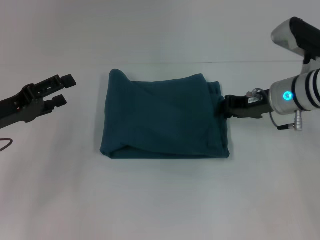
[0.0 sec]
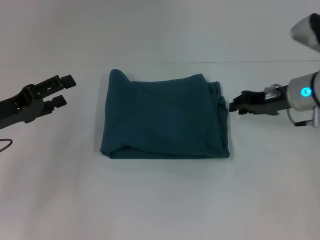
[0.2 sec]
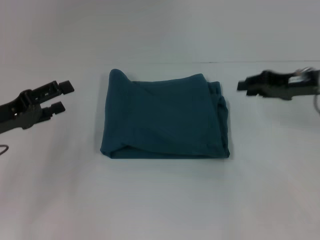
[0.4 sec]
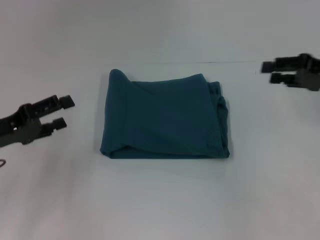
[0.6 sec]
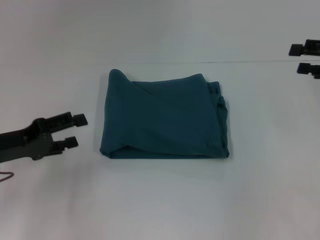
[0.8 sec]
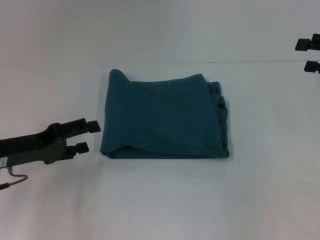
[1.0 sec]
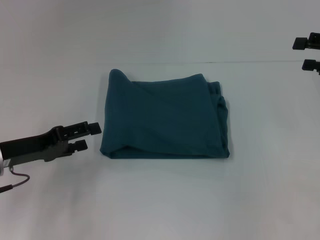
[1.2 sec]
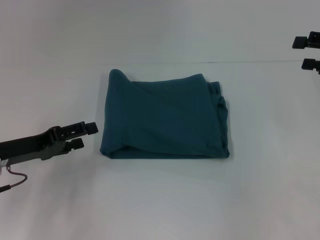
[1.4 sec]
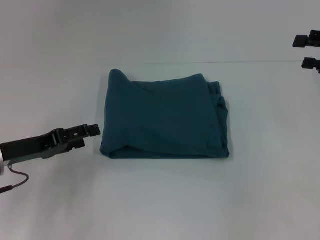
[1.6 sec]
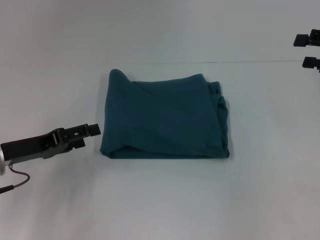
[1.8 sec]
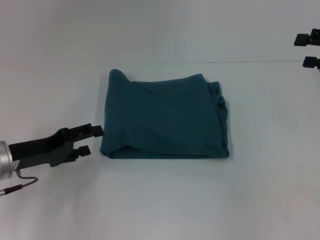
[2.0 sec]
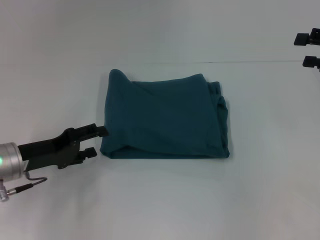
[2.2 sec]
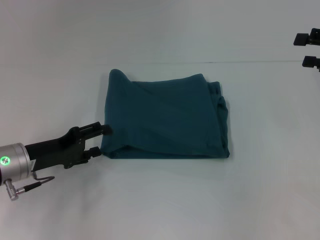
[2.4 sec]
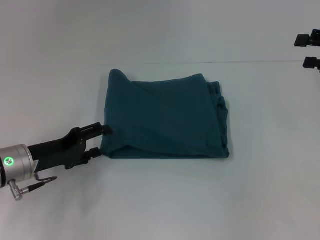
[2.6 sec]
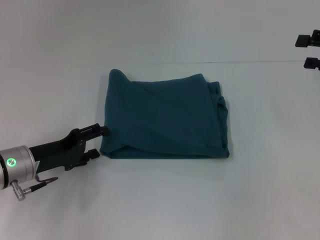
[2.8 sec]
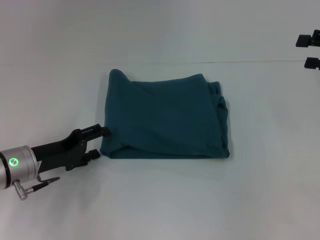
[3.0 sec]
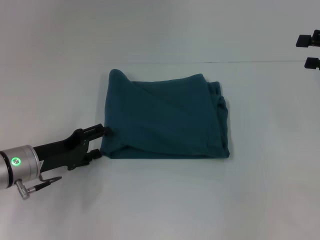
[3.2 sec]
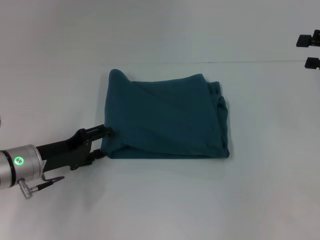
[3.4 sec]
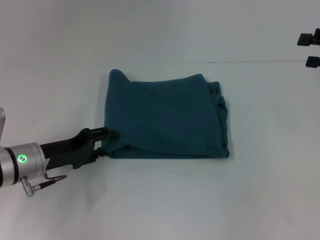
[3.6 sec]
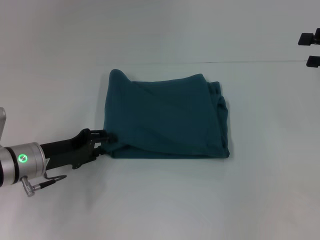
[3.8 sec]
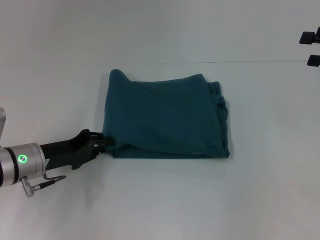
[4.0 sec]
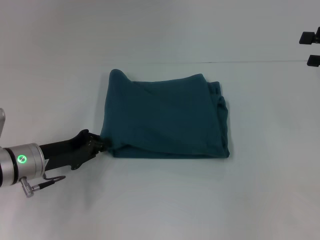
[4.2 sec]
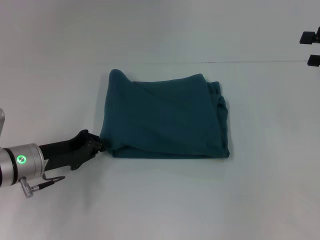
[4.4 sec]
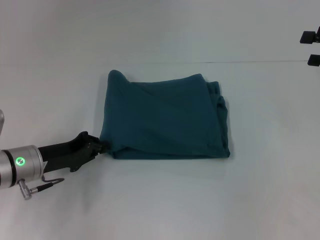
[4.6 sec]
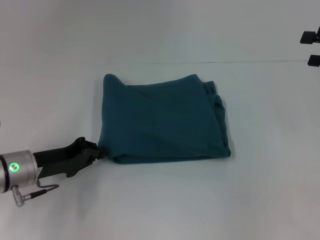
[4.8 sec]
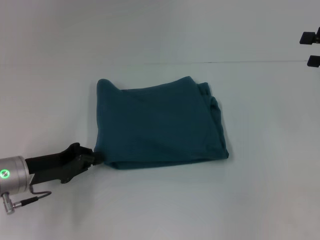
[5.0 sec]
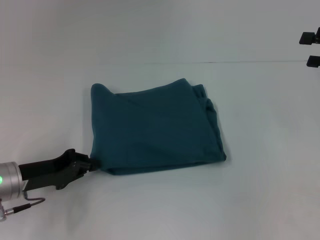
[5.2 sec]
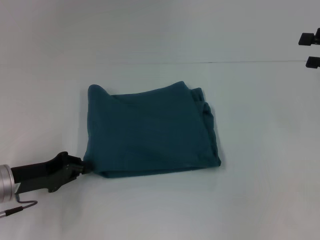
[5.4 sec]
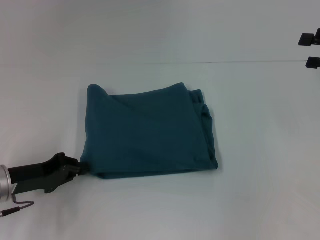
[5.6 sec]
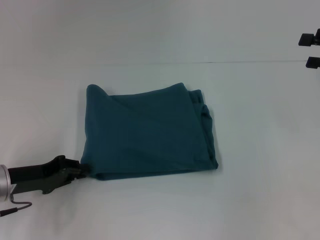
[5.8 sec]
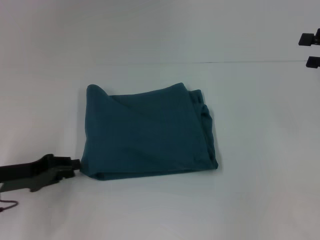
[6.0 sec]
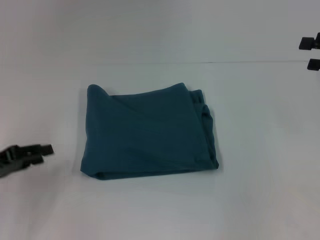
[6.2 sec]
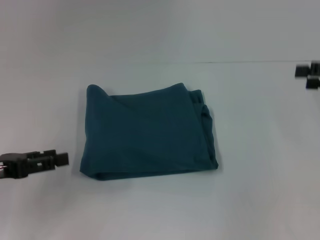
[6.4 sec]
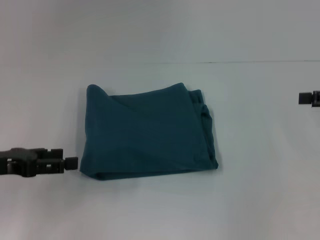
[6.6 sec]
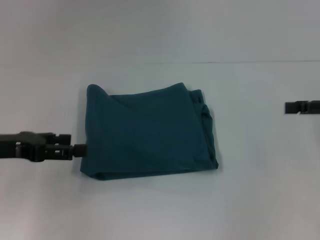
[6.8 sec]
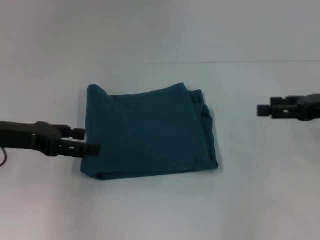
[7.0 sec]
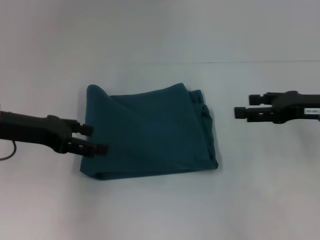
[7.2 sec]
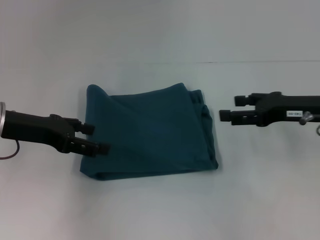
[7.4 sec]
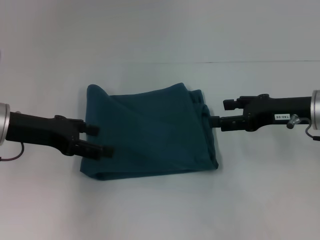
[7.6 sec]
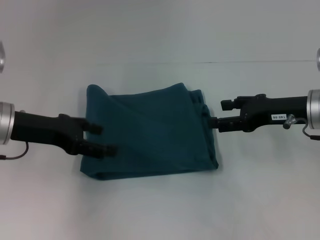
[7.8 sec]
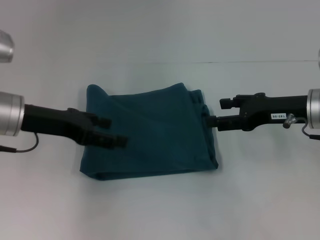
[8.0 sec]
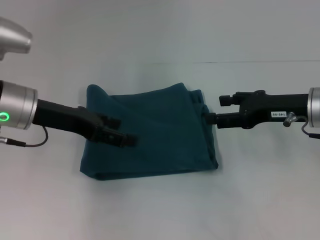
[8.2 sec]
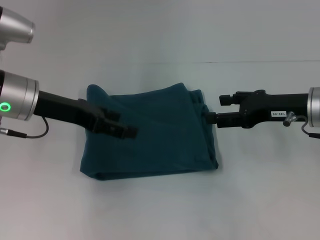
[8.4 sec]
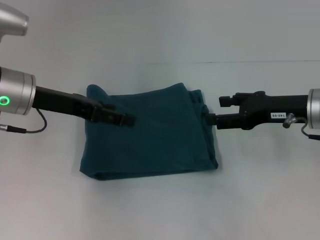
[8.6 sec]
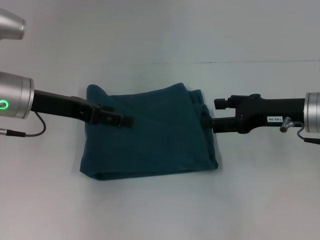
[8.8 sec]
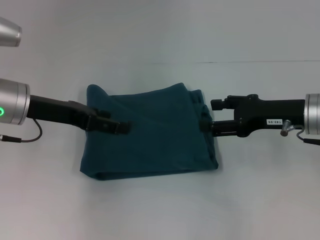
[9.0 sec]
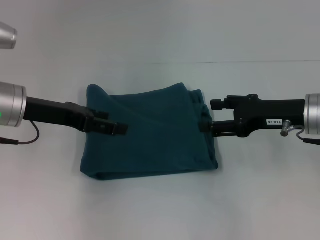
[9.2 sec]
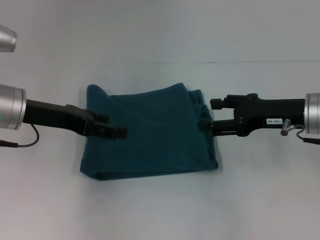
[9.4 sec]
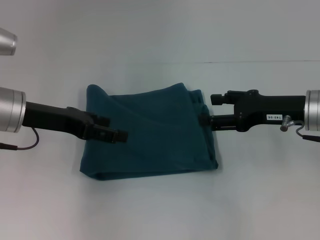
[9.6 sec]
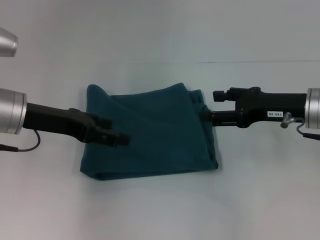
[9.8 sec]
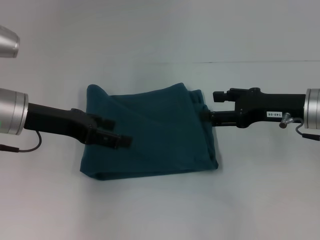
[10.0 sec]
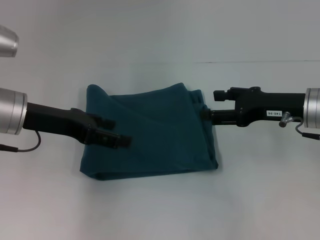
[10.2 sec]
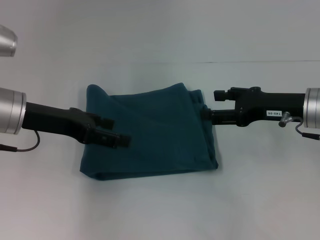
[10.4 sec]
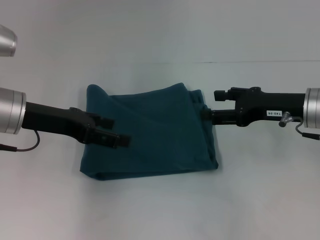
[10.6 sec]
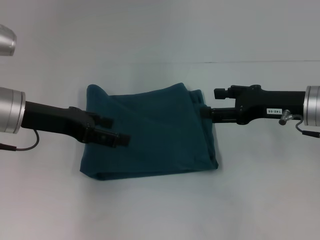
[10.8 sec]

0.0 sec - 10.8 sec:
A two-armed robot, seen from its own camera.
0.0 sec - 1.6 sec: The right gripper heads to the right and upward, covering approximately 20 cm, and opens its fingers.
1.6 sec - 3.0 sec: The left gripper ends up about 5 cm from where it was.
3.0 sec - 4.6 sec: The left gripper closes.
4.6 sec - 6.2 sec: The left gripper shifts roughly 10 cm to the left.
6.2 sec - 7.8 sec: The right gripper moves to the left and downward, approximately 15 cm. Meanwhile the left gripper heads to the right, forward and upward, covering some 10 cm, and opens up.
7.8 sec - 10.8 sec: The grippers make only small movements.

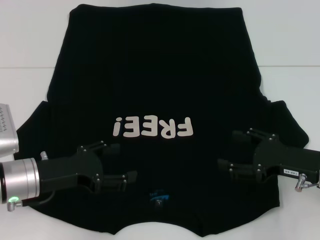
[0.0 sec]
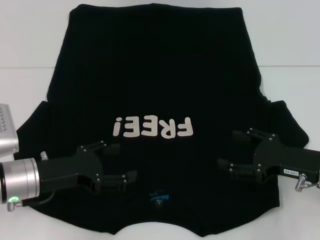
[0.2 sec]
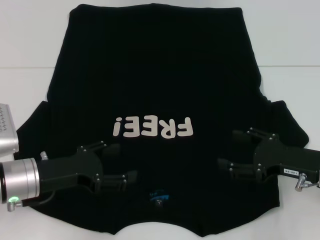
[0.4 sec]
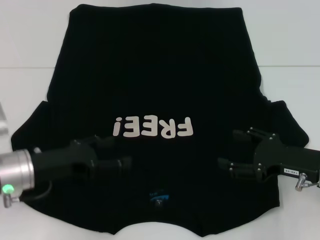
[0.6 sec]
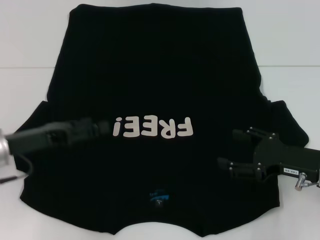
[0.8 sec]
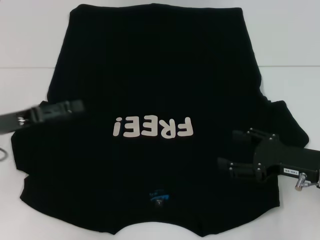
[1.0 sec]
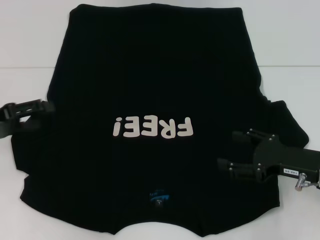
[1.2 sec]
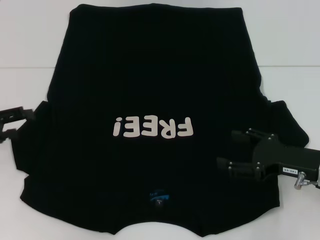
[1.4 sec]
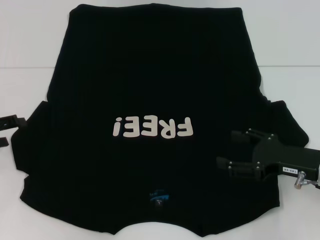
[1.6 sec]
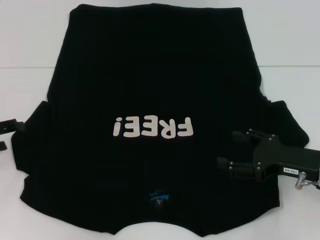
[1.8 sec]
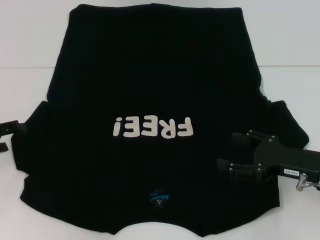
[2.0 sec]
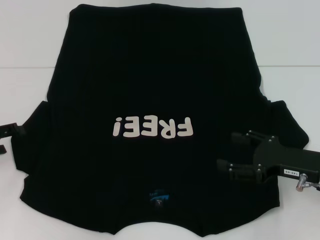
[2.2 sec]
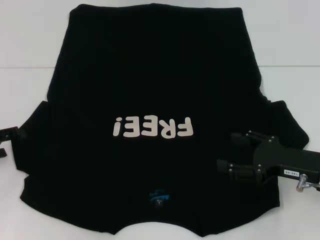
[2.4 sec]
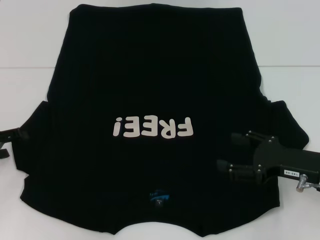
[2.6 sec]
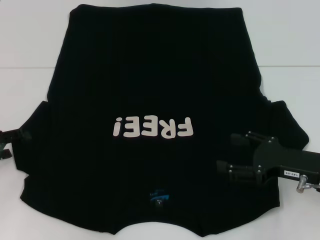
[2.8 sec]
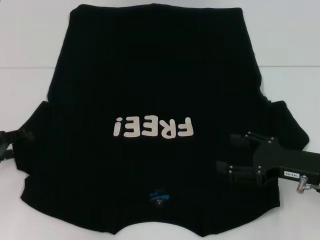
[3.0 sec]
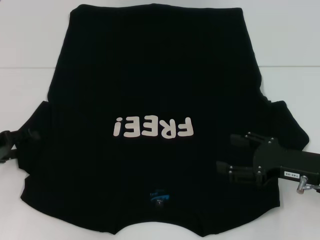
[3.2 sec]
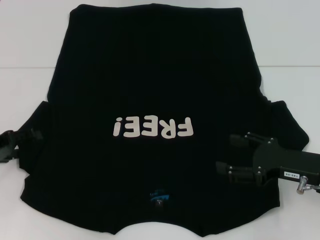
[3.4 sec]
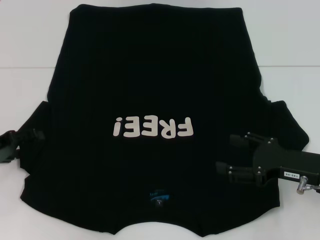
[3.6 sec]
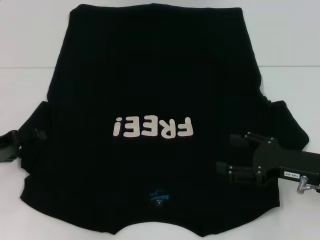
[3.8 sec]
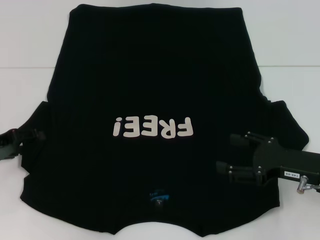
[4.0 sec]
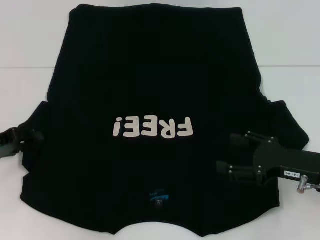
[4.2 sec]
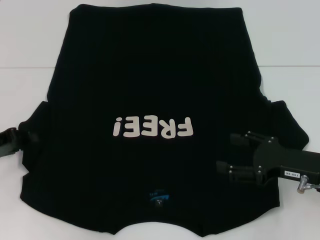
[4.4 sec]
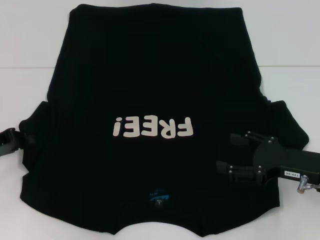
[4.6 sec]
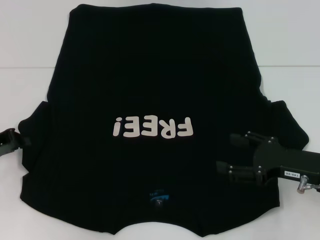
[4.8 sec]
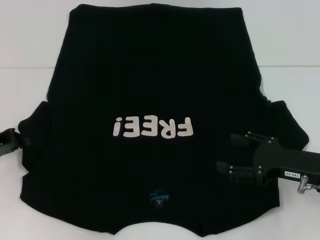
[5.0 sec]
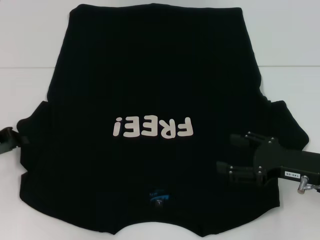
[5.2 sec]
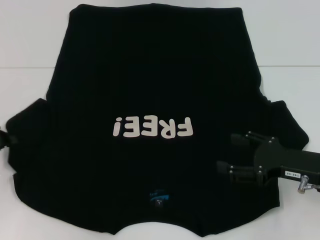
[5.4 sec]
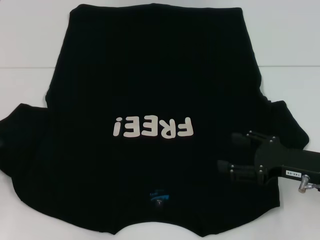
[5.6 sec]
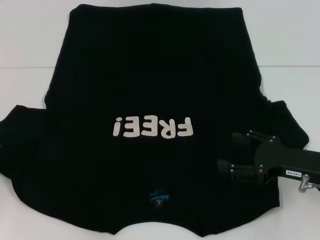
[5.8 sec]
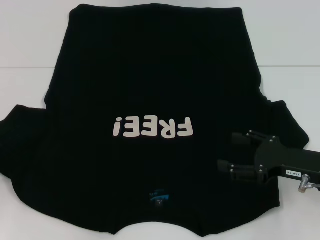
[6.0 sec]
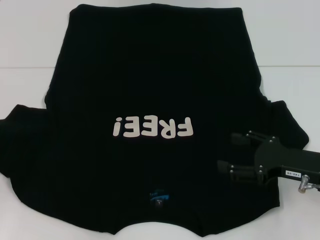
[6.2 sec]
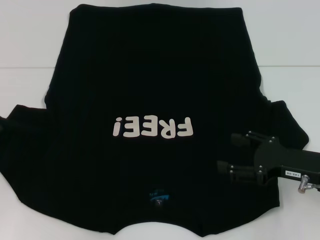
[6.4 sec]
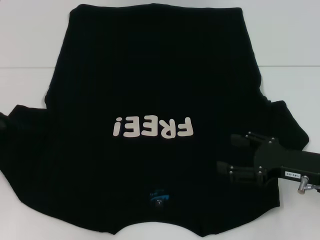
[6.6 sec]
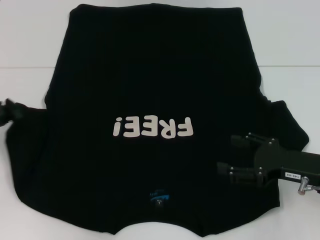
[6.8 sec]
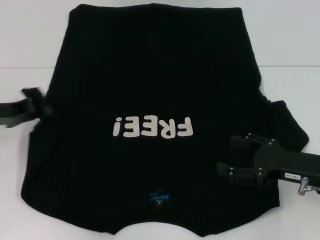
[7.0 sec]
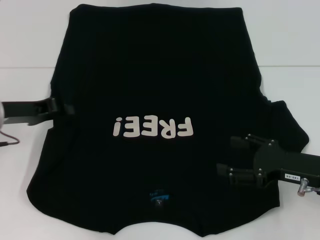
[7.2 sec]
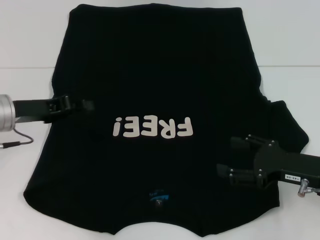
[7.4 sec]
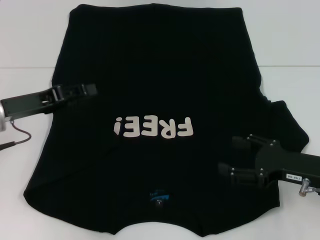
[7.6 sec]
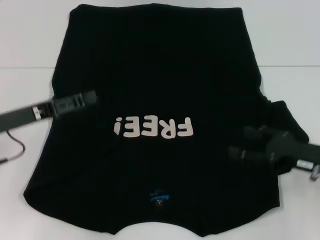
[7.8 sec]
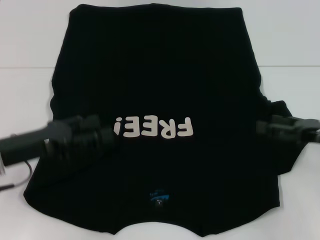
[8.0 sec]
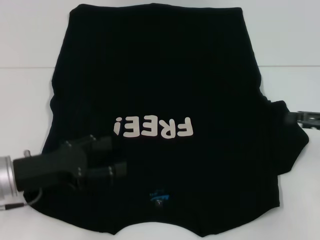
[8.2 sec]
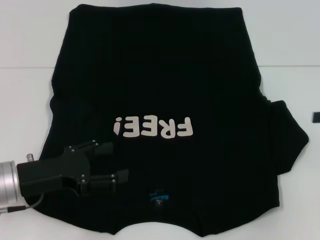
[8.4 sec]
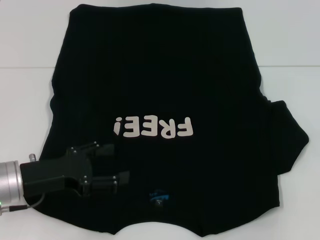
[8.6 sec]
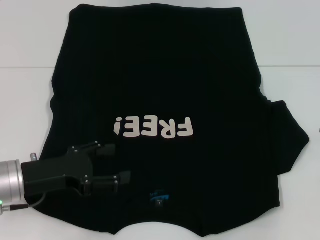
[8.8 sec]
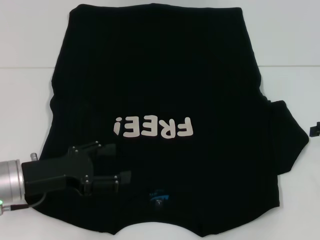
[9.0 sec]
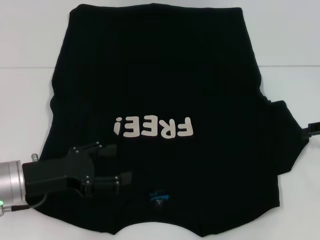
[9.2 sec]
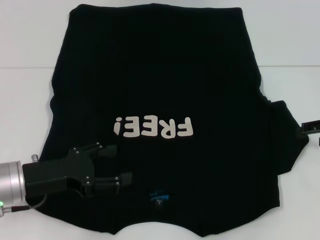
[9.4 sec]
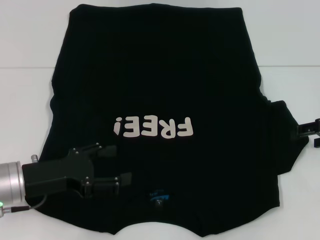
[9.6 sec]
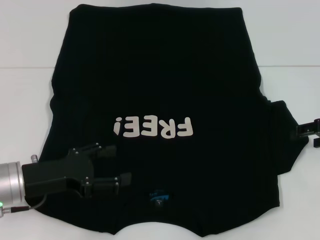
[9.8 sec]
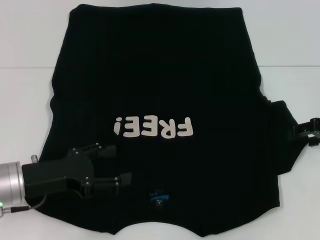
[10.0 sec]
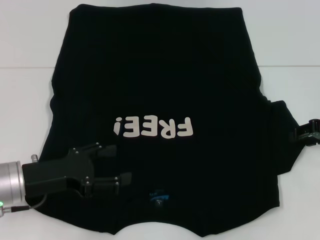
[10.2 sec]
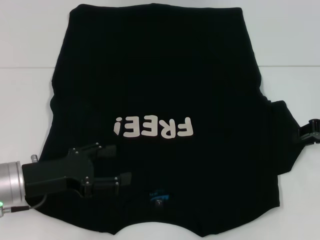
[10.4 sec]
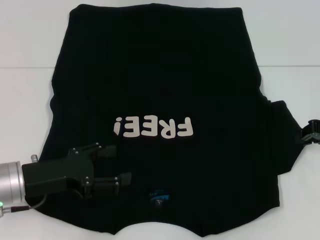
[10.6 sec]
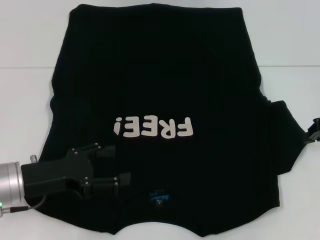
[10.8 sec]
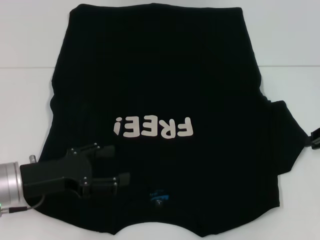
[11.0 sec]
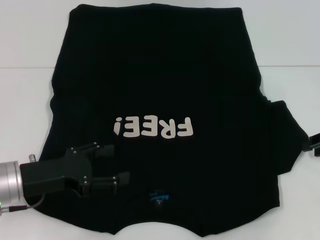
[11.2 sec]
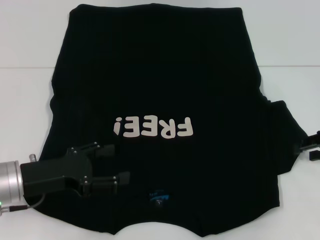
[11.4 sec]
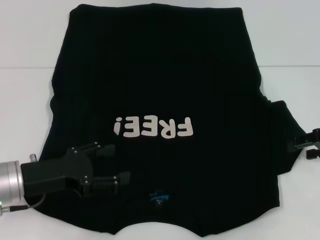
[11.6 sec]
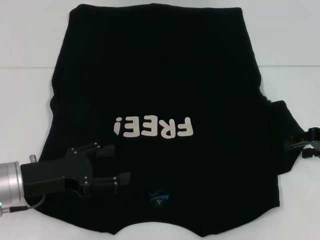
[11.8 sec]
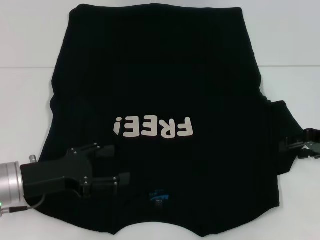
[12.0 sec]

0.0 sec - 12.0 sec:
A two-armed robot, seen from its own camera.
Step, 0.0 sec - 7.4 sec: Fold the bottom left sleeve with your left hand.
0.0 sec - 1.6 sec: The left gripper is displaced to the left by approximately 15 cm.
1.6 sec - 3.0 sec: The grippers stay close to where they were, moving slightly.
3.0 sec - 4.4 sec: The left gripper closes up.
4.4 sec - 6.0 sec: The left gripper closes its fingers.
6.0 sec - 7.6 sec: The left gripper travels to the right by roughly 10 cm.
7.6 sec - 9.0 sec: The left gripper is displaced backward by some 5 cm, and opens up, while the right gripper heads to the right, forward and upward, covering about 15 cm.
9.0 sec - 10.4 sec: The grippers make only small movements.
10.4 sec - 12.0 sec: The right gripper closes, then reopens.
